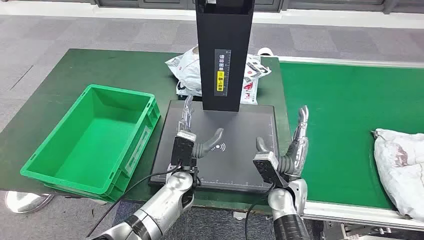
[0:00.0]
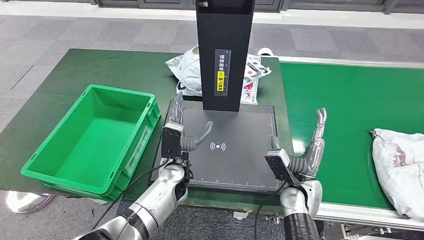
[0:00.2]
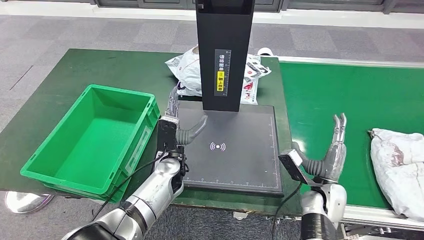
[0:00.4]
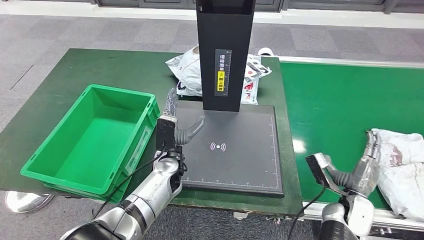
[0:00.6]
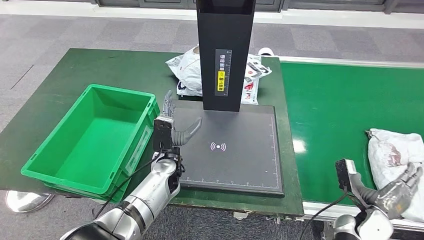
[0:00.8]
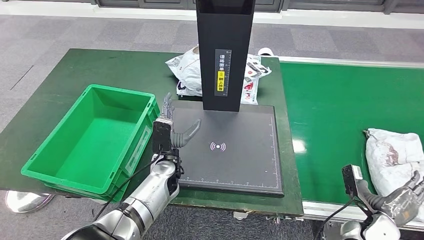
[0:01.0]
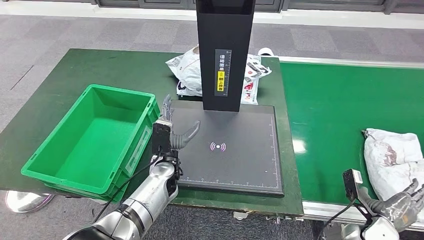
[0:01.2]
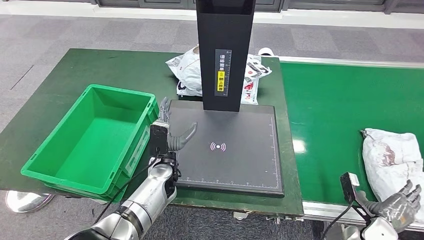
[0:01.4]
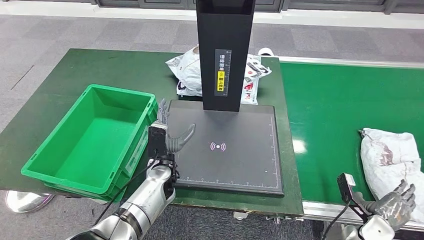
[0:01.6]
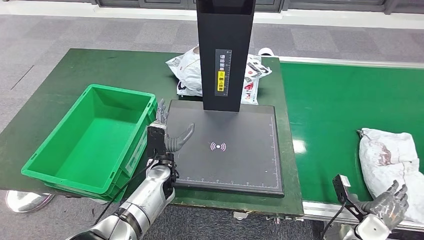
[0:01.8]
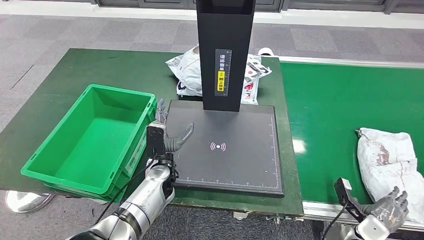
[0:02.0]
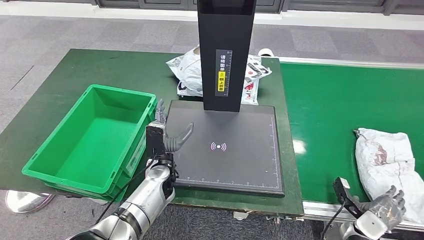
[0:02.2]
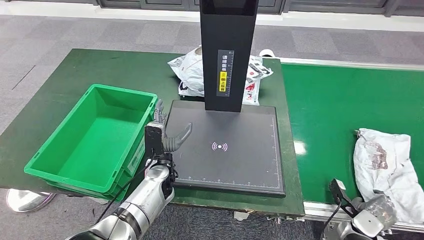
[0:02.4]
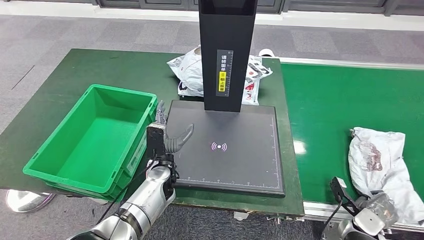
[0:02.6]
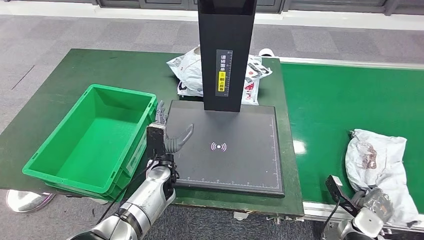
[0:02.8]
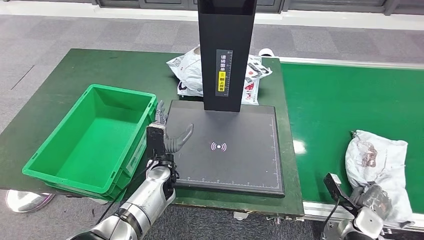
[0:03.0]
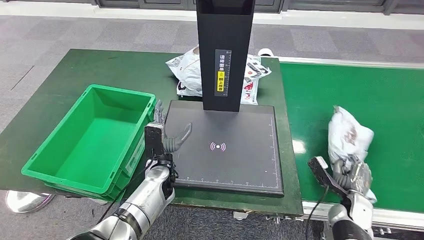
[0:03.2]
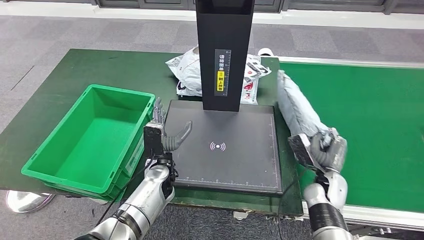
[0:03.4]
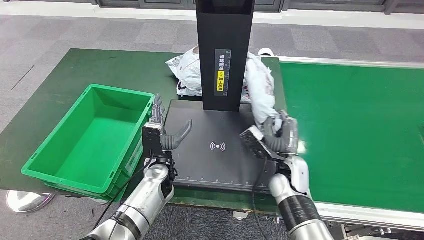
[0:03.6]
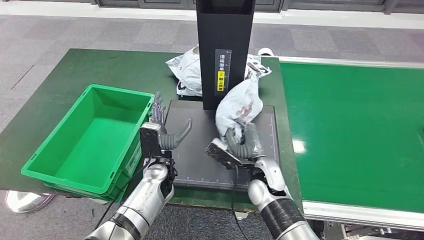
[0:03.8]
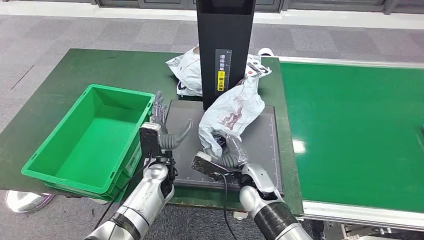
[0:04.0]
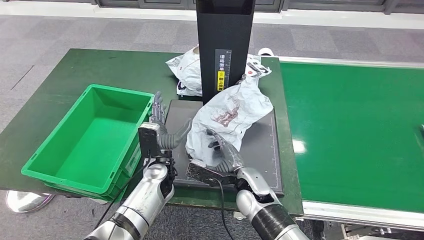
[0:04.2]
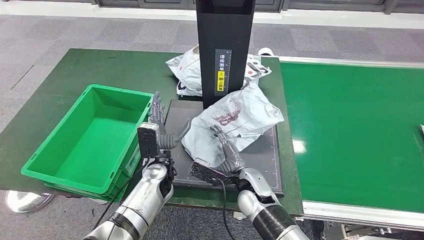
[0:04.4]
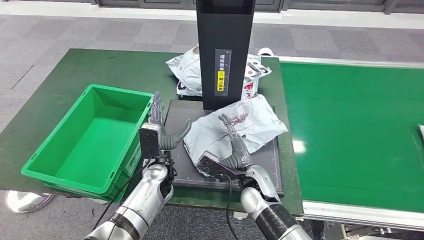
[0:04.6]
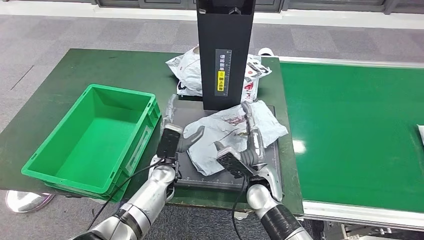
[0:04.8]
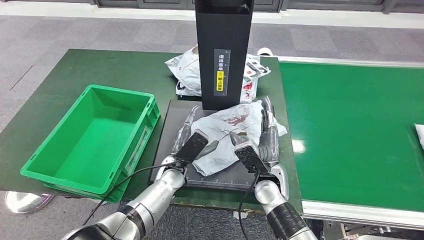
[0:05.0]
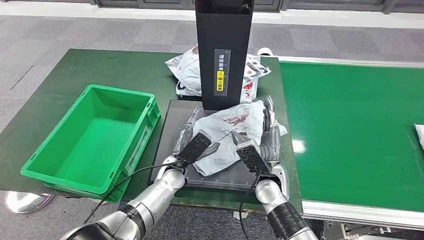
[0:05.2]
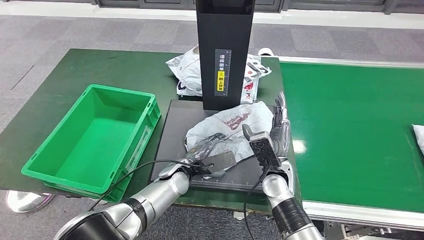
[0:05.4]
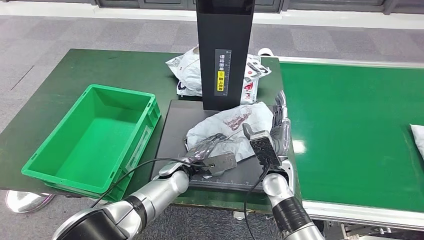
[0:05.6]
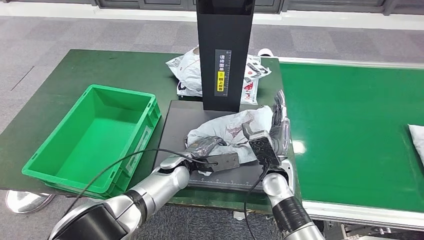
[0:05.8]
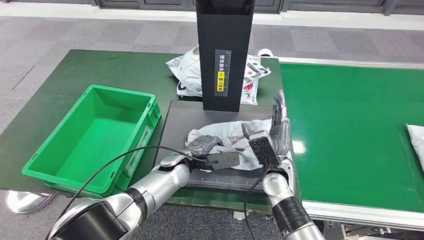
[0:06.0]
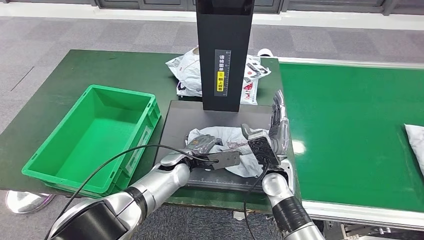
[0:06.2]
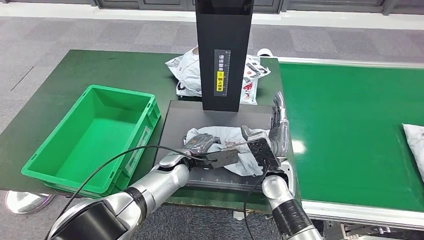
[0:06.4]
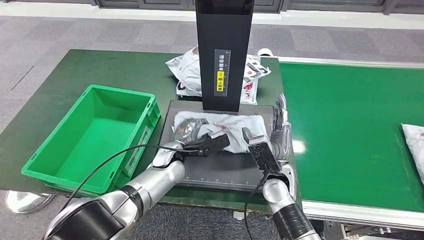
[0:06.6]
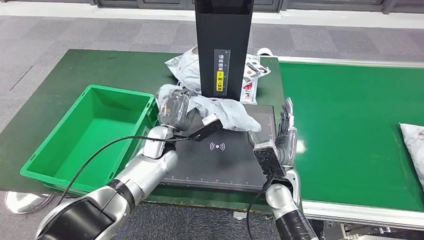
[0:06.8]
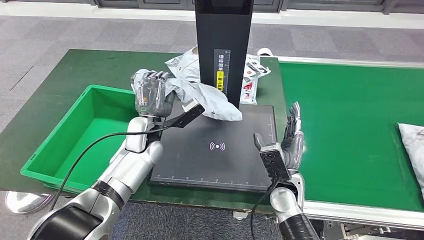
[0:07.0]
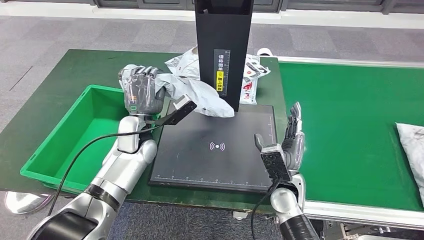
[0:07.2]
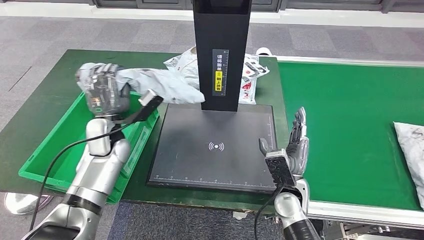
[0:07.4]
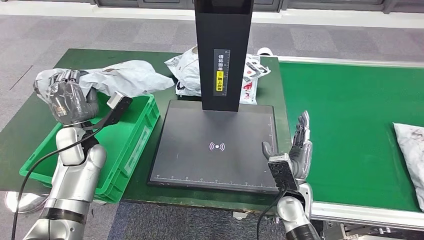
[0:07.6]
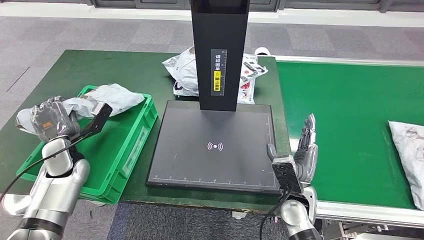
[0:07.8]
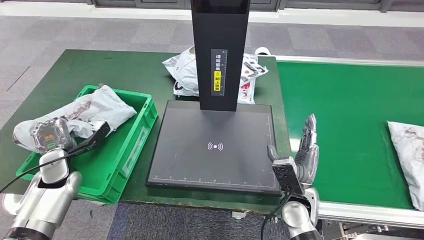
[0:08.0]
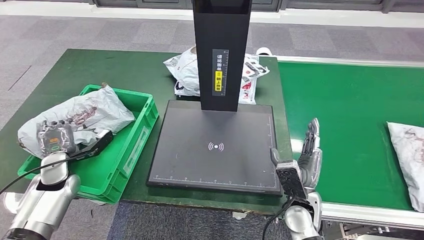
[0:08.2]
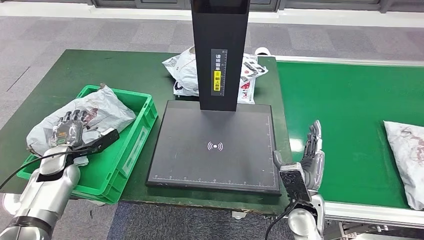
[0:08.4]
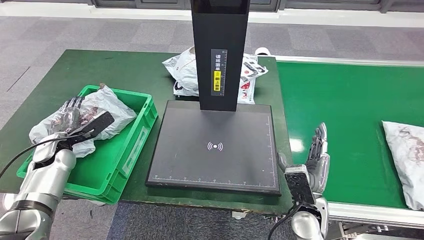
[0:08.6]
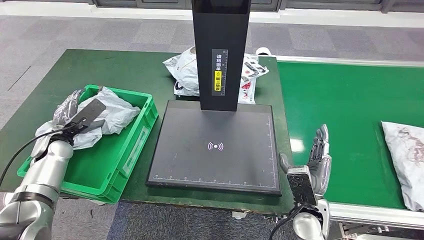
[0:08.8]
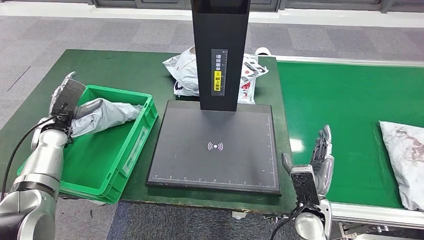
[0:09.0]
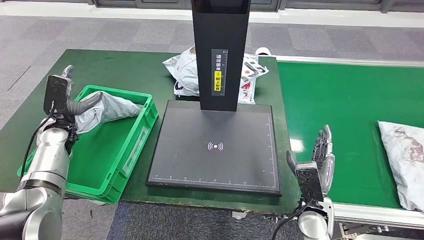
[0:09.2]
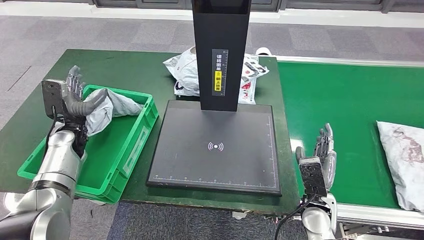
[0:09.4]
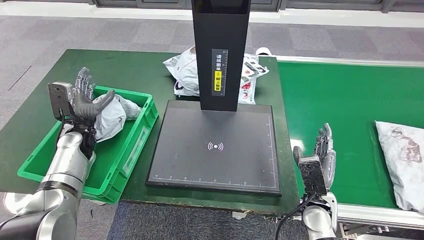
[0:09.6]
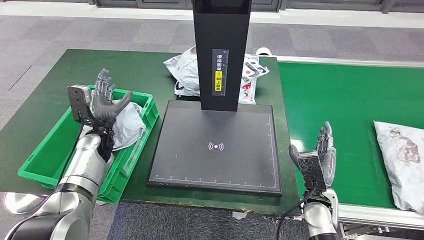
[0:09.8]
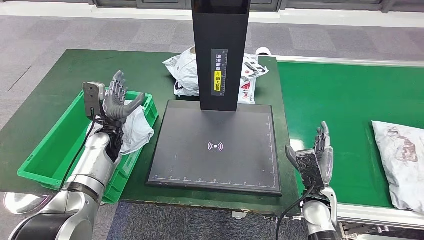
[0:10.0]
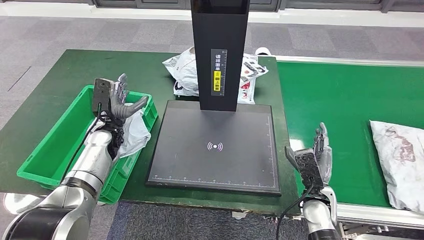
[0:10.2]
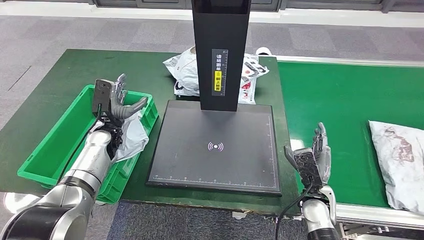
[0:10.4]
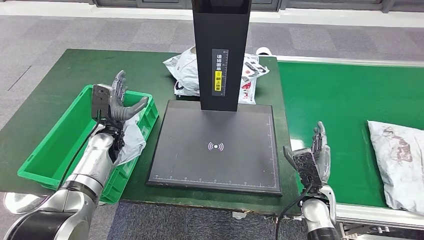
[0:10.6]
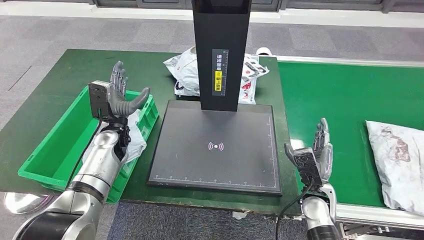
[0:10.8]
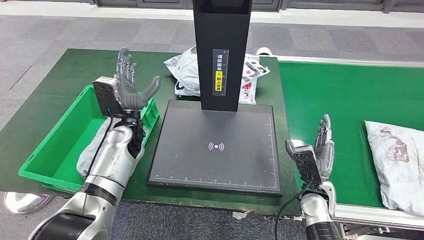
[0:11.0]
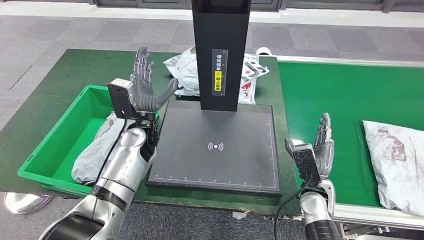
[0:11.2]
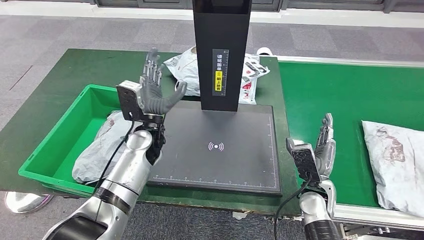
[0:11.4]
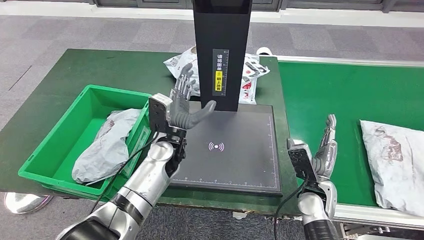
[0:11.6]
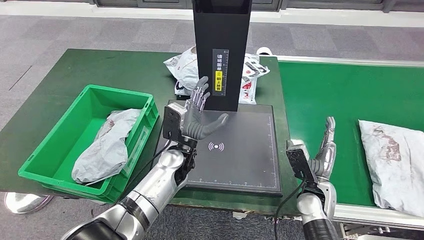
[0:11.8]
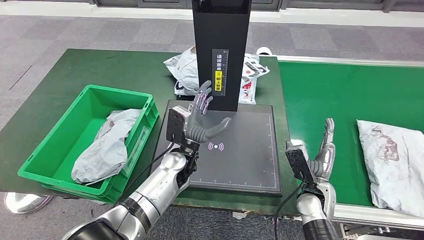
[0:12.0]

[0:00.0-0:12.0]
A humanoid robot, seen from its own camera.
Step, 0:00.0 to 0:03.2: Take the parcel off the conveyor belt.
Step, 0:03.6 to 0:05.4: Place the parcel onto the inbound machine.
Step, 0:05.6 to 0:07.0: Pick up the parcel from the inbound machine.
Step, 0:07.4 to 0:11.4: Put the parcel inside the courier box.
0:09.0 to 0:10.4: The left hand goes about 15 cm to the right.

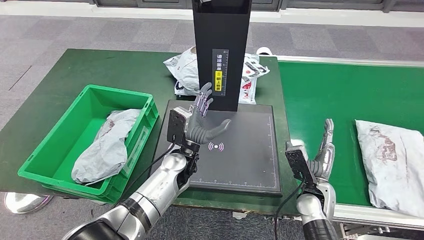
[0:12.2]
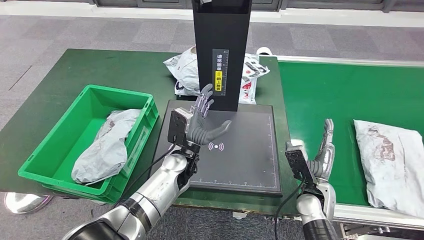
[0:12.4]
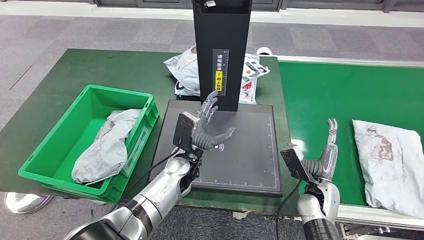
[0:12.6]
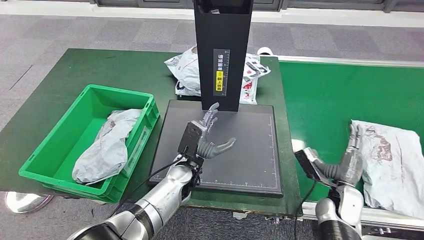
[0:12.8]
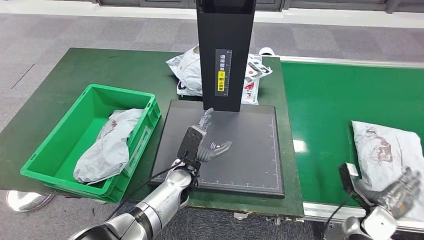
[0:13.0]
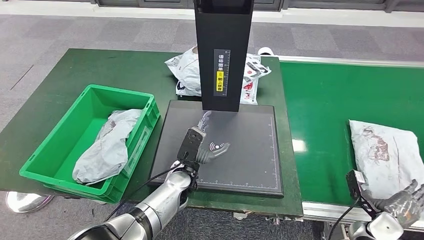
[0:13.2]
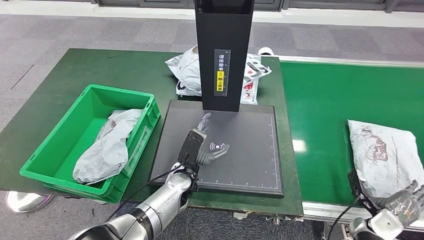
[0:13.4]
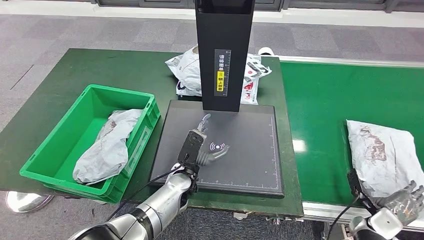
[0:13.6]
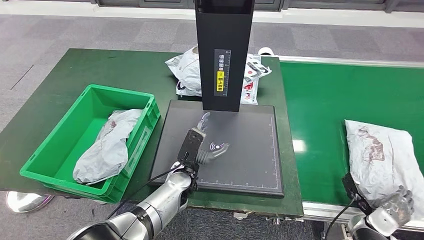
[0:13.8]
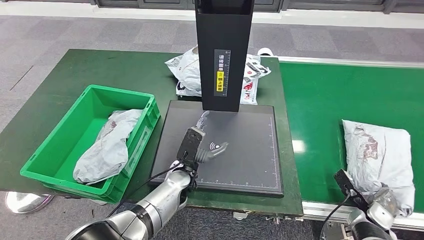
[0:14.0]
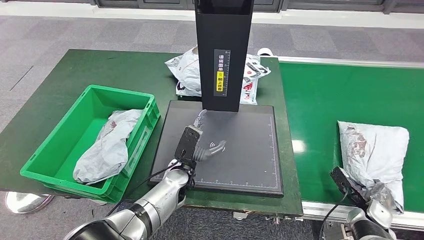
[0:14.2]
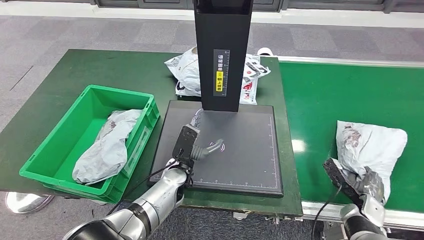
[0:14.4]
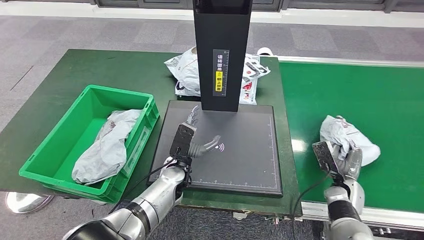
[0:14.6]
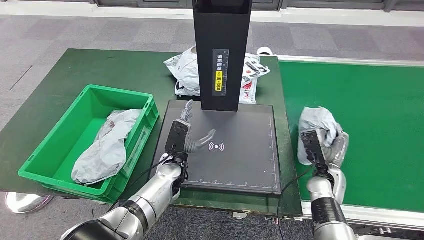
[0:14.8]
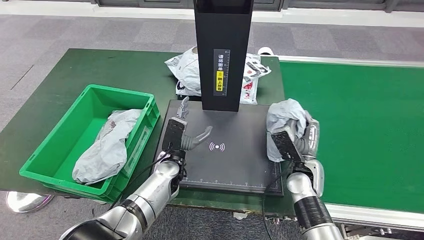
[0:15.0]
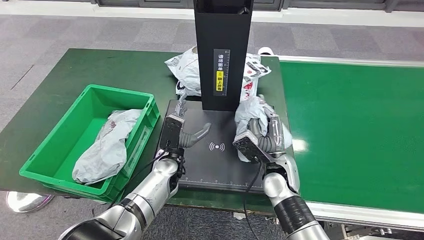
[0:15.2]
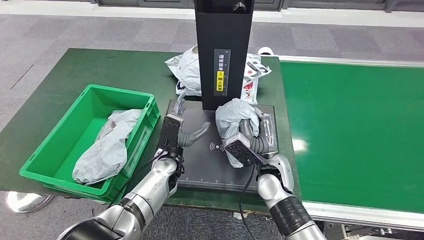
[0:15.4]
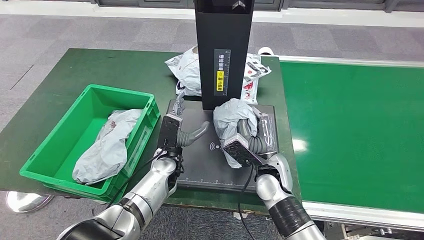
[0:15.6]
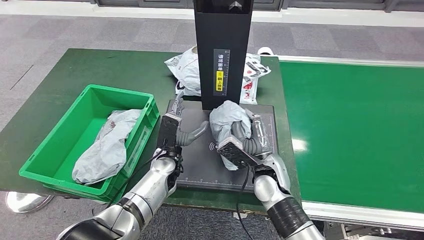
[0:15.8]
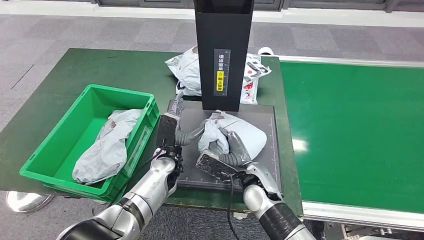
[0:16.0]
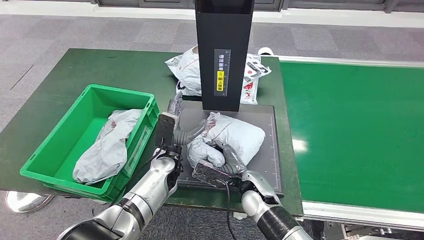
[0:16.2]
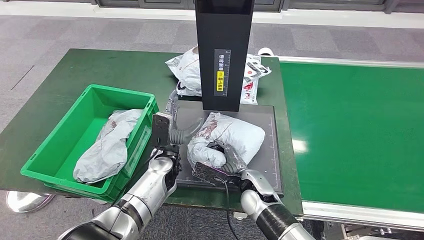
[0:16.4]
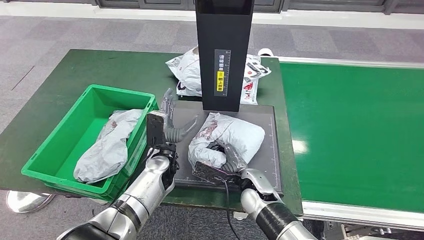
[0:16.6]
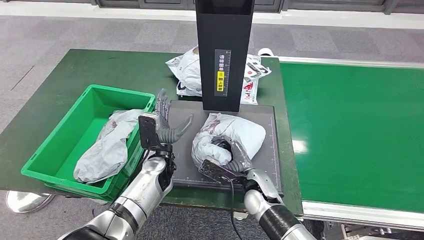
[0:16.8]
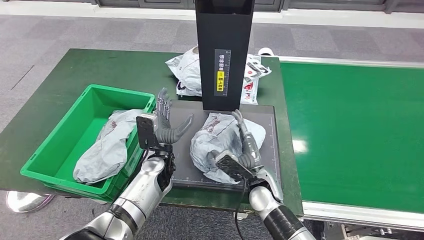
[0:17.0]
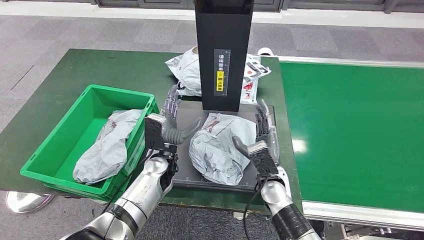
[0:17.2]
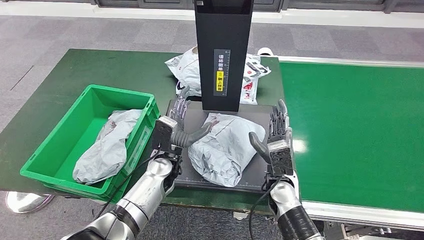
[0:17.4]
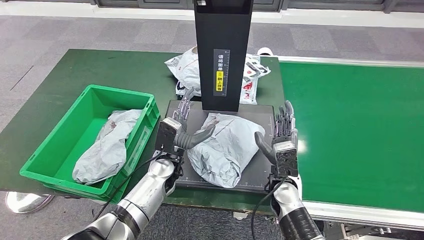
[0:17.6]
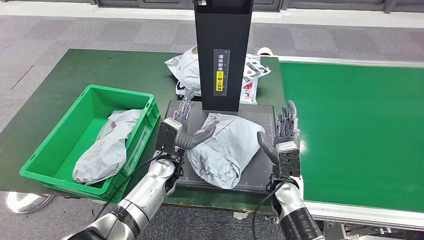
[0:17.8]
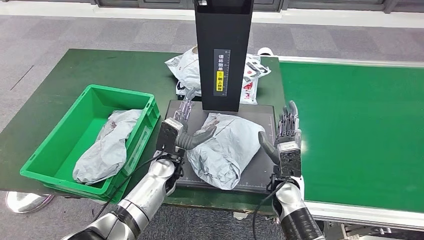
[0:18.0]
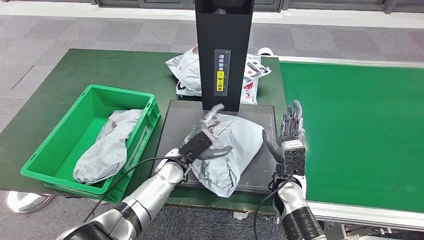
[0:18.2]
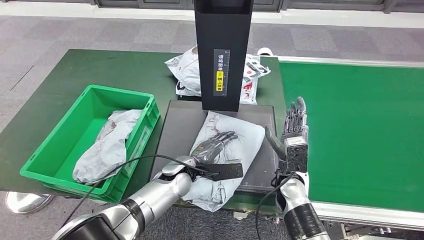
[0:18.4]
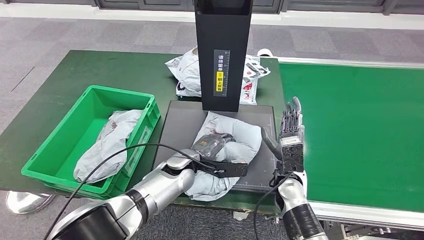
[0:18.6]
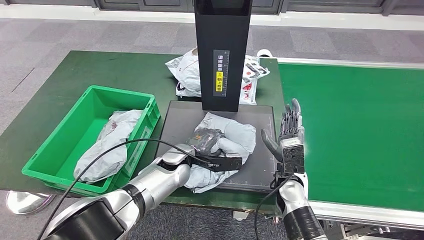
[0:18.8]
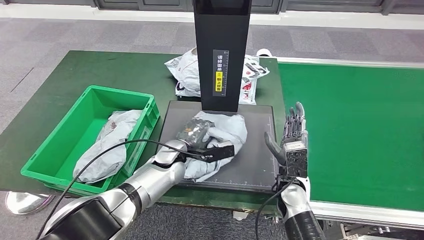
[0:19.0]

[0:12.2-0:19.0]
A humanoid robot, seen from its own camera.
Step, 0:12.2 to 0:14.6: Pick up the parcel from the conveyor belt.
Step, 0:15.0 to 0:17.6: Place the parcel onto the inbound machine.
0:15.0 to 0:16.2: The right hand is displaced to the left by approximately 10 cm.
0:16.2 to 0:17.6: The right hand moves to the right, roughly 5 cm.
